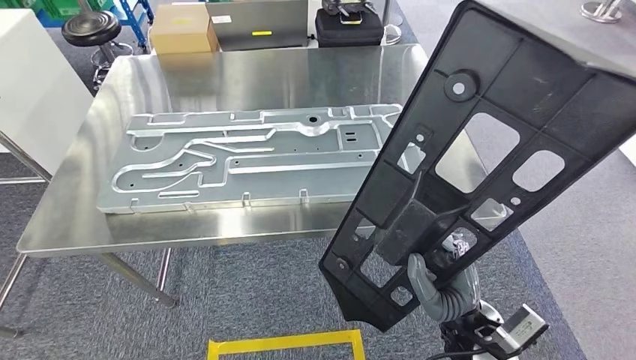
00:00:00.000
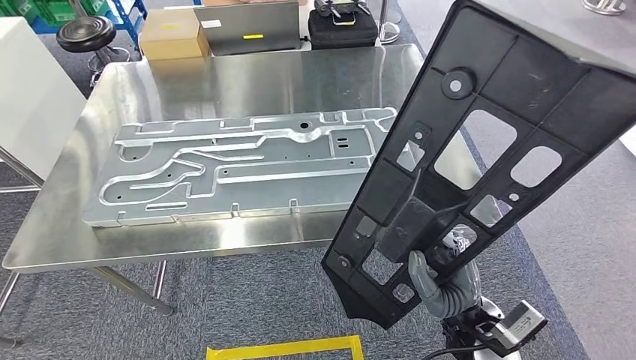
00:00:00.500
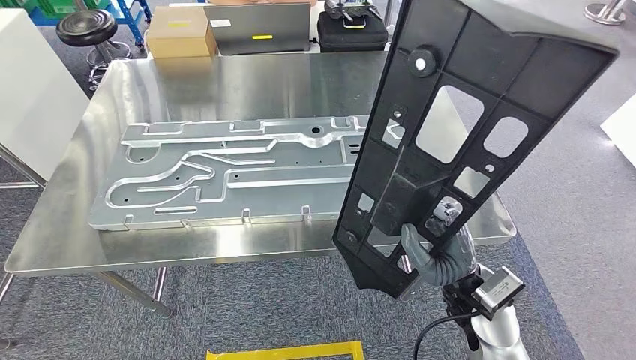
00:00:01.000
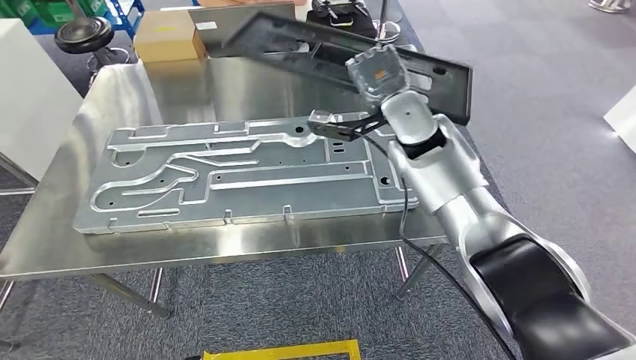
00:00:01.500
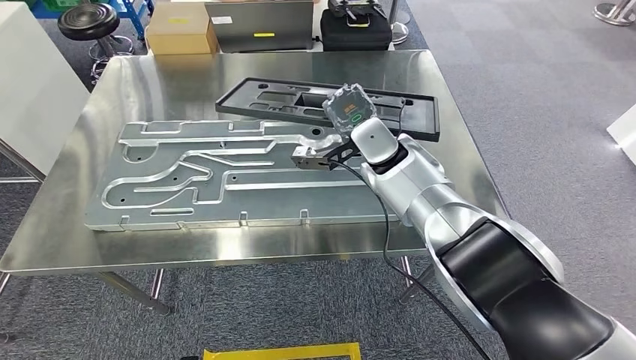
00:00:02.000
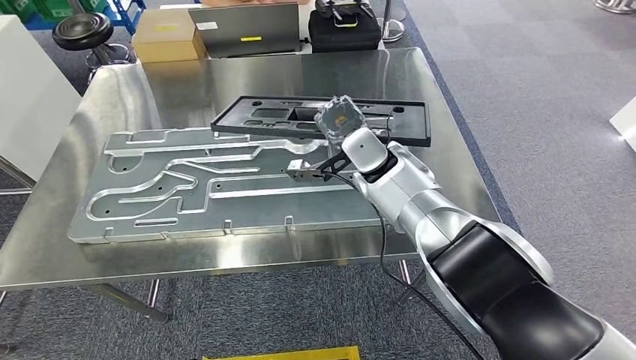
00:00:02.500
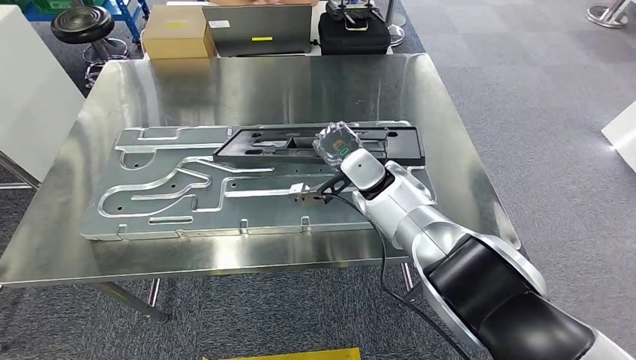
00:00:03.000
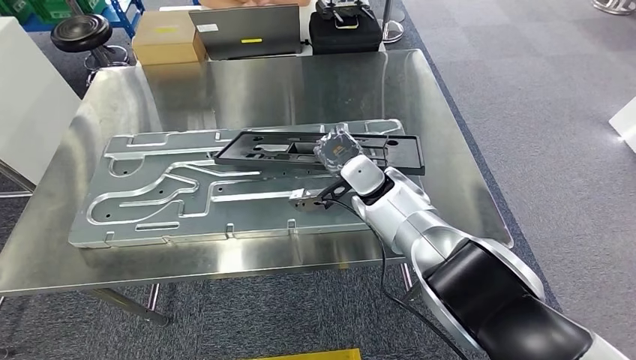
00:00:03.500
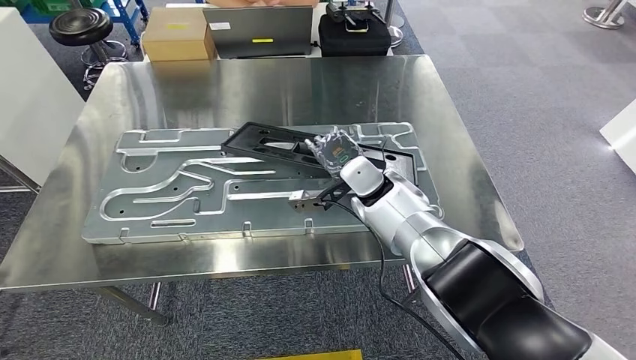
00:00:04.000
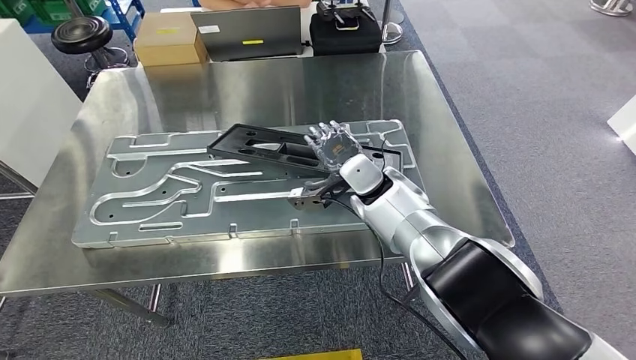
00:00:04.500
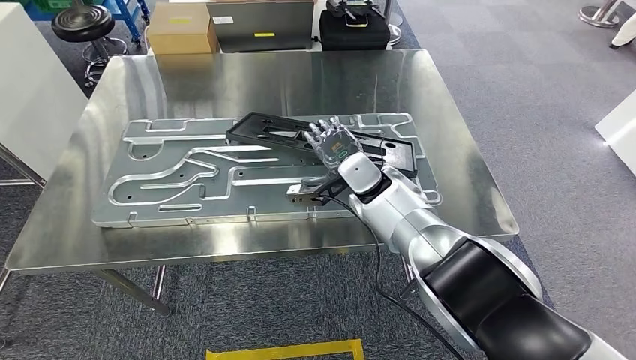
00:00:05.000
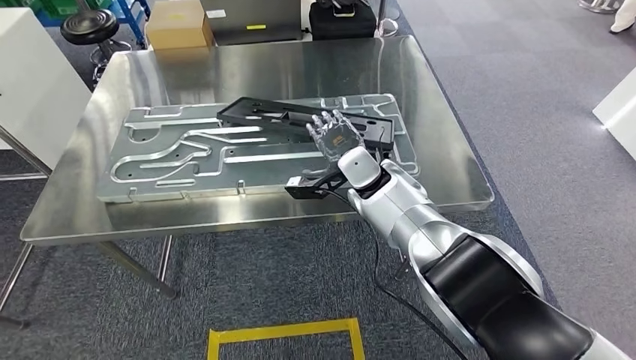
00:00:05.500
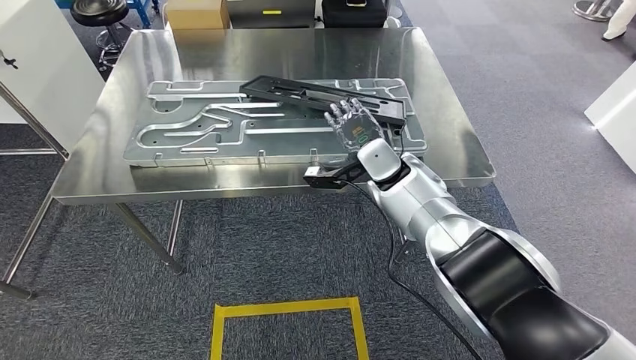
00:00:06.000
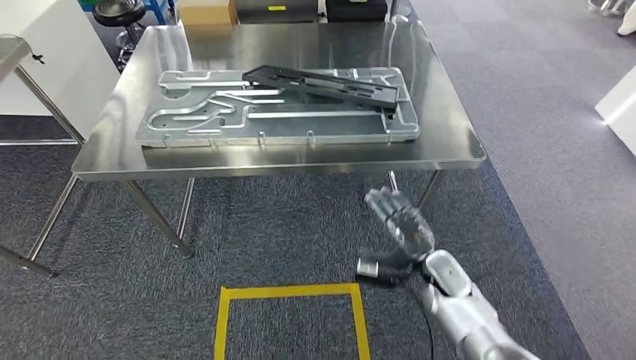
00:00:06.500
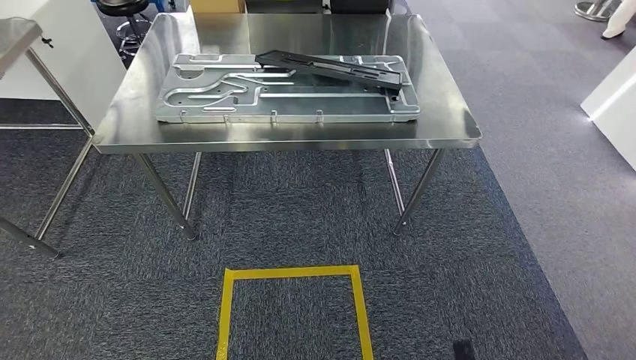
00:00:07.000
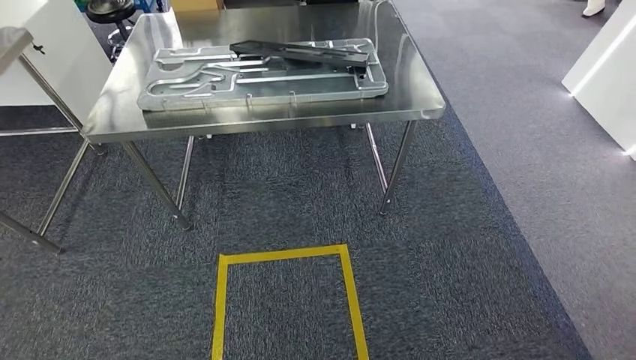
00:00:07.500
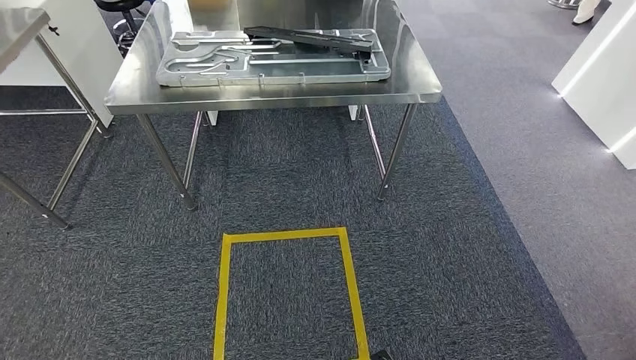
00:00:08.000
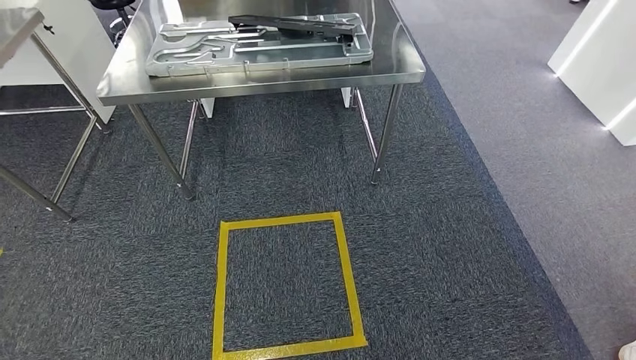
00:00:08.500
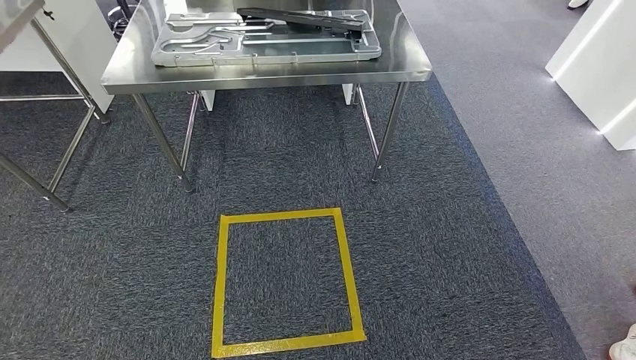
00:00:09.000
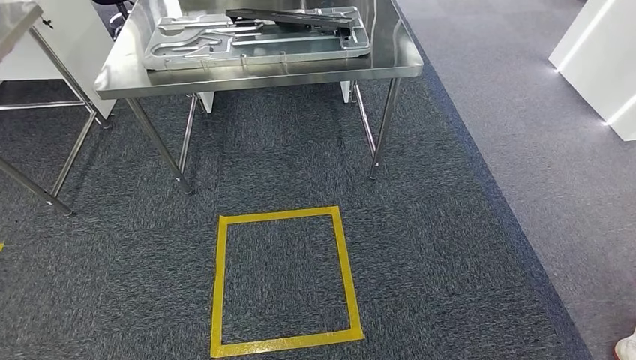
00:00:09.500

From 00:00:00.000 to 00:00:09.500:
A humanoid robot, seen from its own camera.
Step, from 00:00:01.000 to 00:00:04.500: Insert the large material into the corresponding slot on the workbench.
Step, from 00:00:06.500 to 00:00:09.500: Move to the initial position of the shelf.
